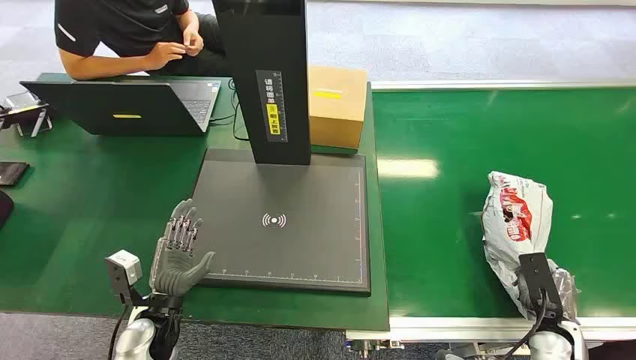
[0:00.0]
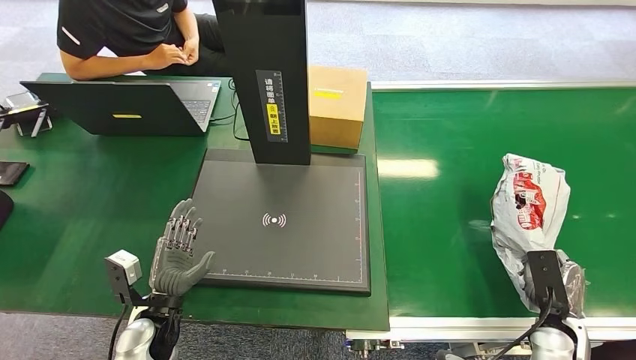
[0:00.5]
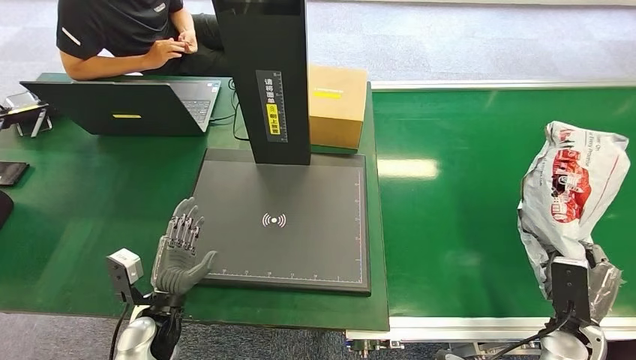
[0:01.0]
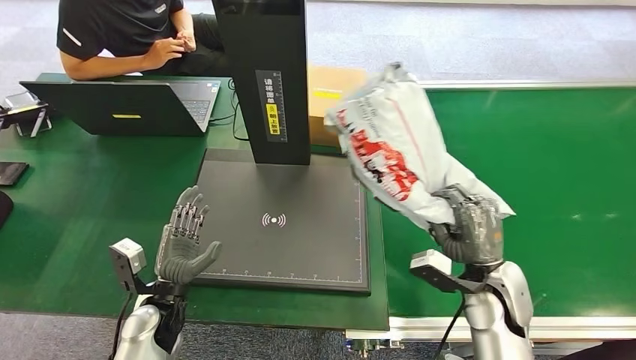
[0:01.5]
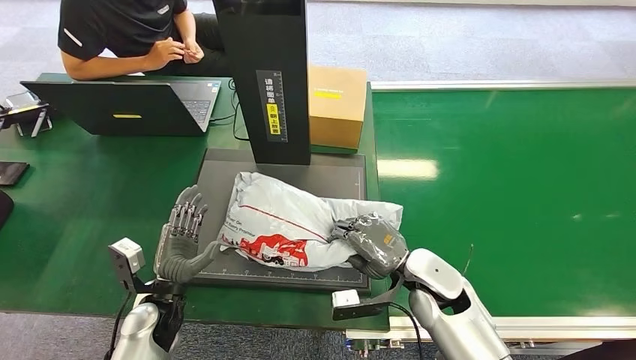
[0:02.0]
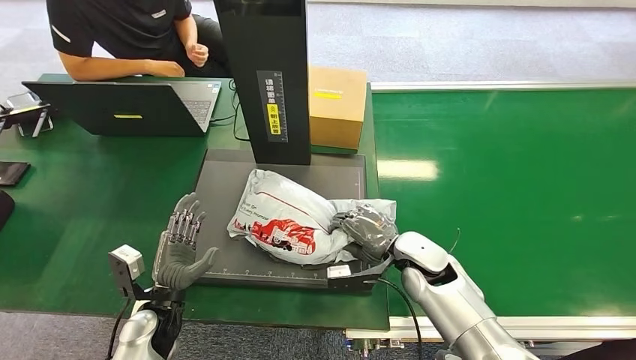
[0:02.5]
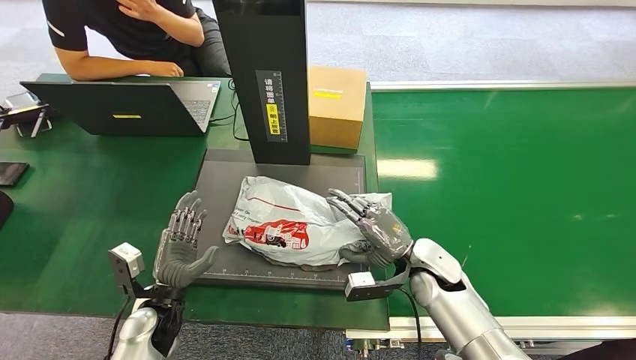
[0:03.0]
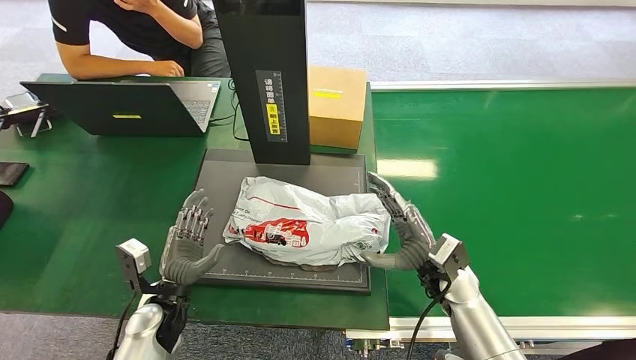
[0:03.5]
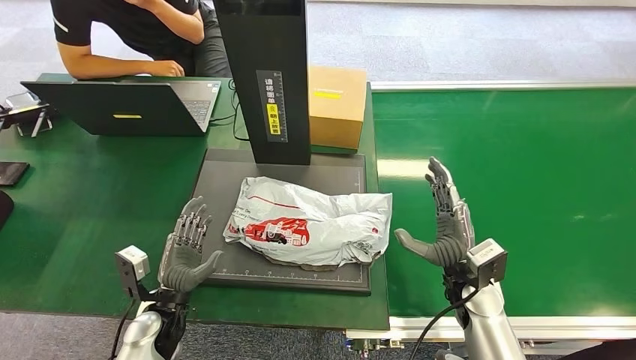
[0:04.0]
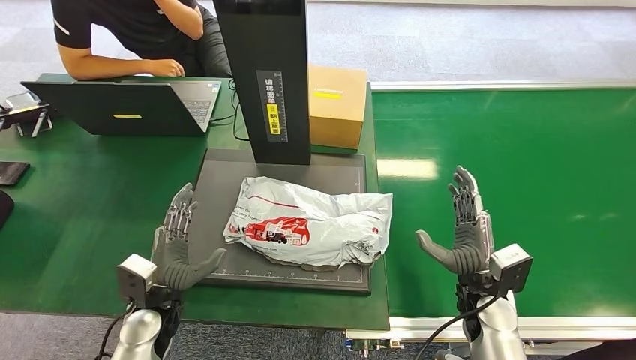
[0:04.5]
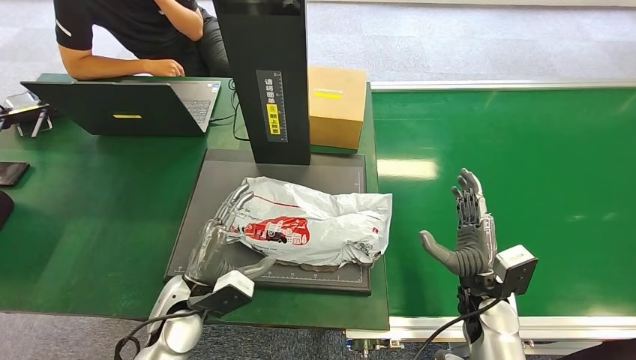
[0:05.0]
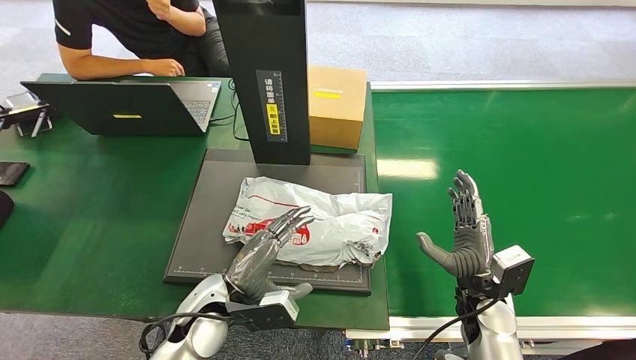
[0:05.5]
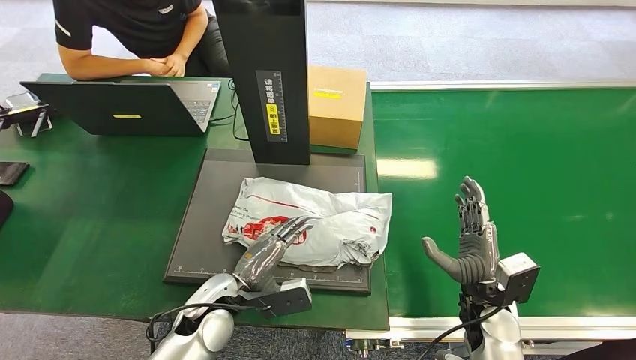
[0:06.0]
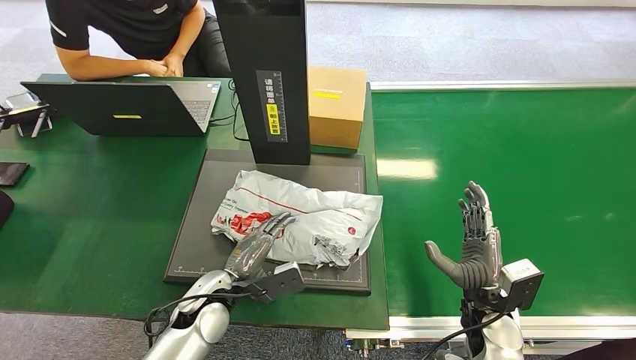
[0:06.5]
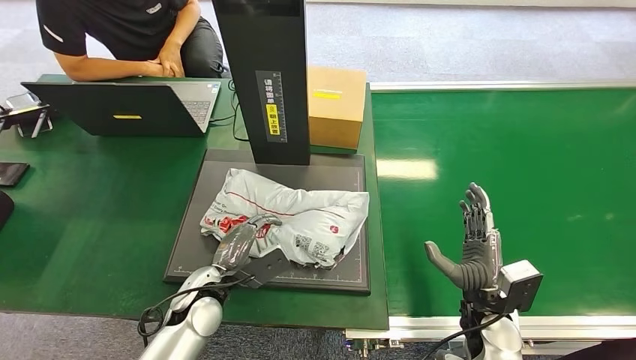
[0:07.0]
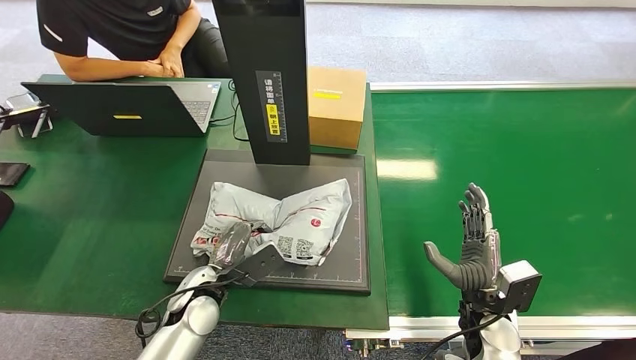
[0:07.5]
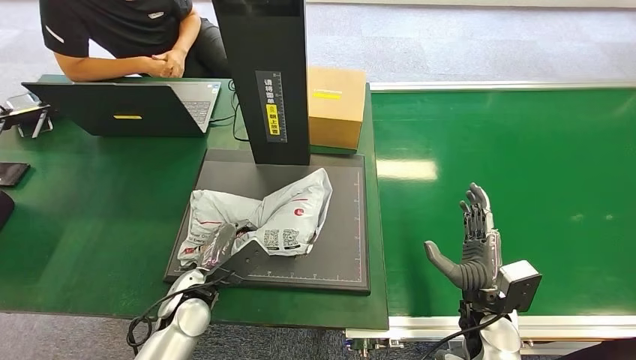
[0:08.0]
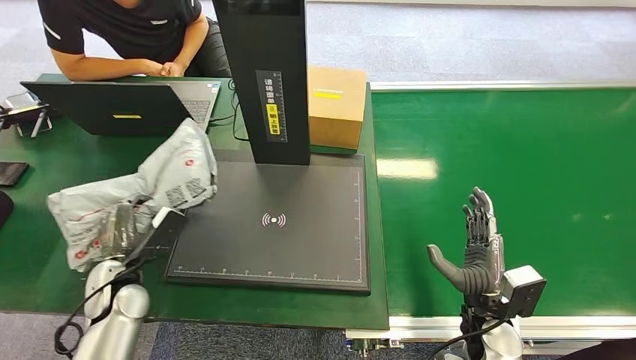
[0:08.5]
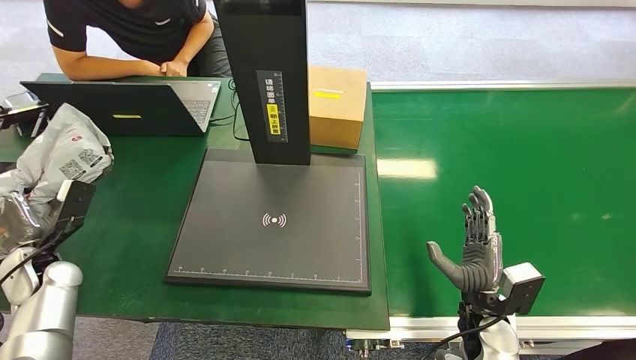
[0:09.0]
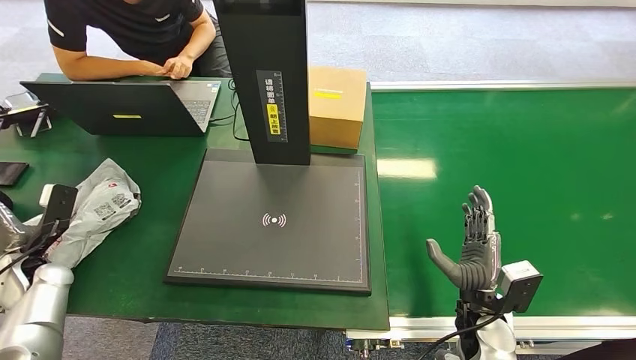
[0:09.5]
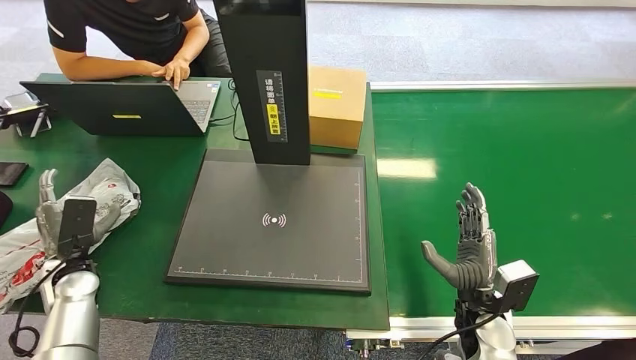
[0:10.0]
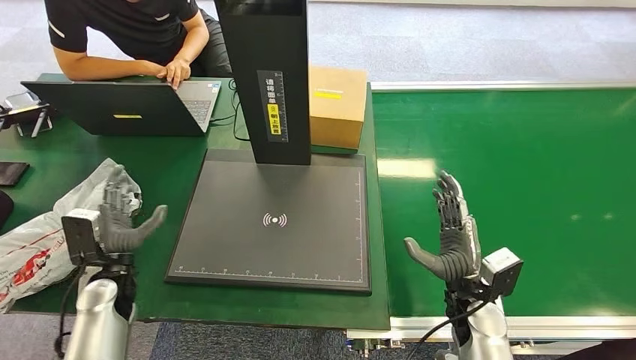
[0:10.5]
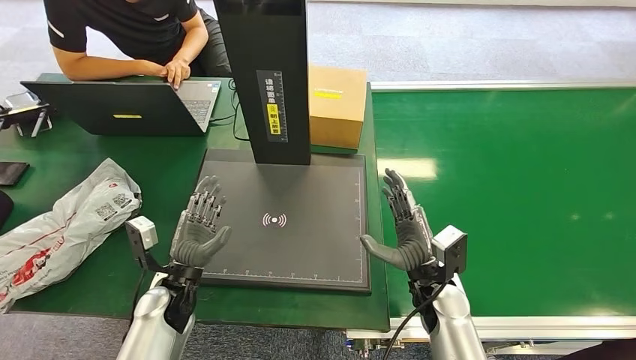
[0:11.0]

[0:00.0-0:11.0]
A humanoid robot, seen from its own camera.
Task of the whole recording: Weigh the package on the weighing device and place it in the left basket.
Step, 0:00.0 to 0:01.0: Pick up the package from the conveyor belt.
Step, 0:01.5 to 0:04.0: Place the package onto the inbound machine.
Step, 0:04.5 to 0:08.5: Pick up the package from the inbound machine.
Step, 0:09.0 to 0:11.0: Place the package into the parcel locker.
0:03.5 to 0:05.5: The left hand shifts some 10 cm to the right and upward. Meanwhile the right hand heads to the right, covering some 5 cm.
0:05.5 to 0:07.5: The left hand ends up approximately 5 cm from where it was.
0:07.5 to 0:09.0: The left hand goes some 30 cm to the left.

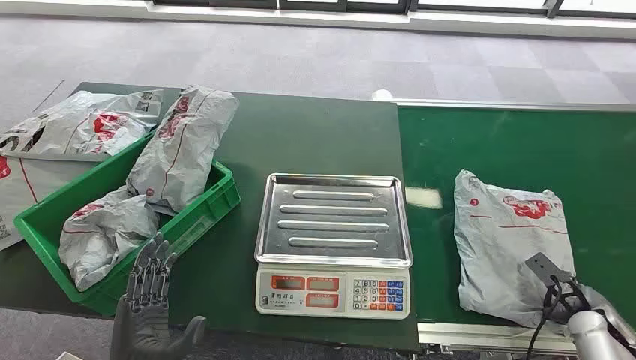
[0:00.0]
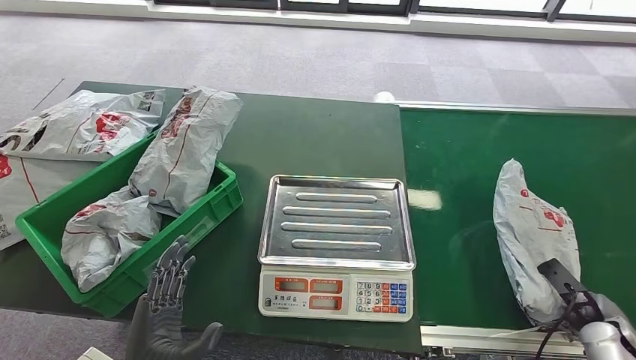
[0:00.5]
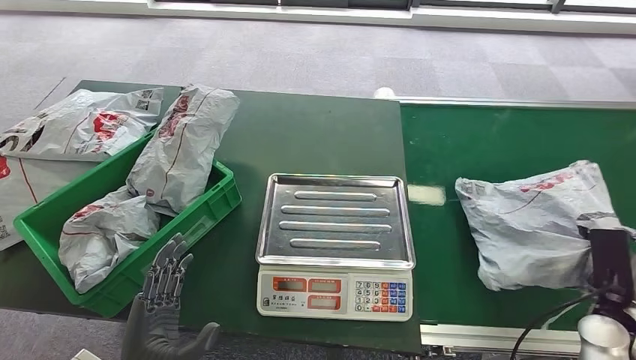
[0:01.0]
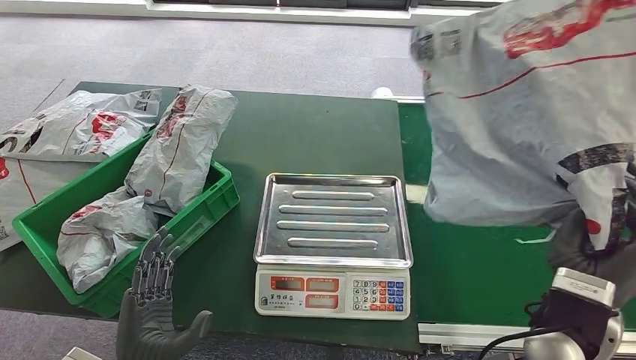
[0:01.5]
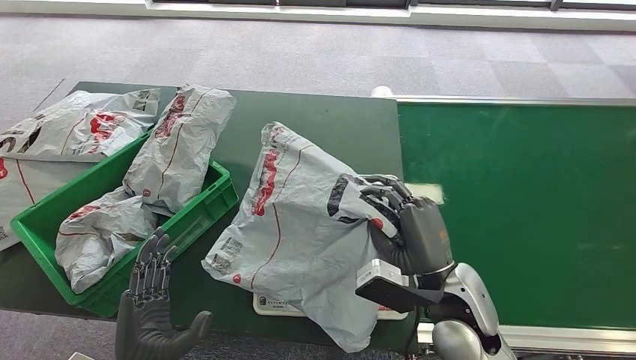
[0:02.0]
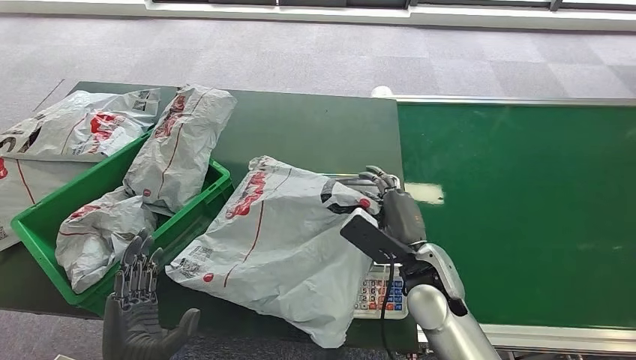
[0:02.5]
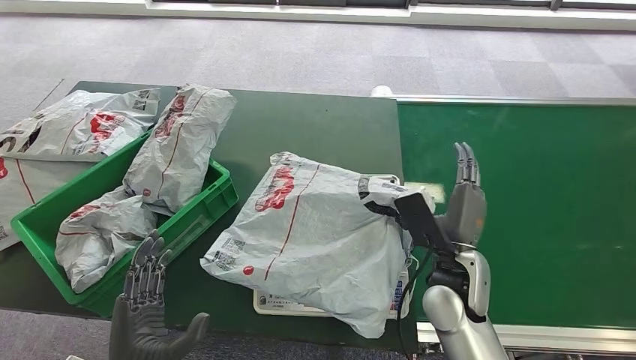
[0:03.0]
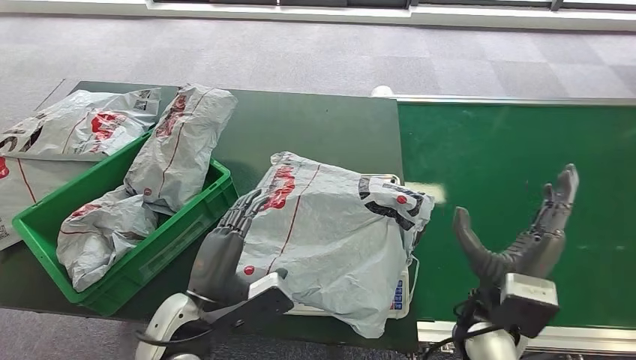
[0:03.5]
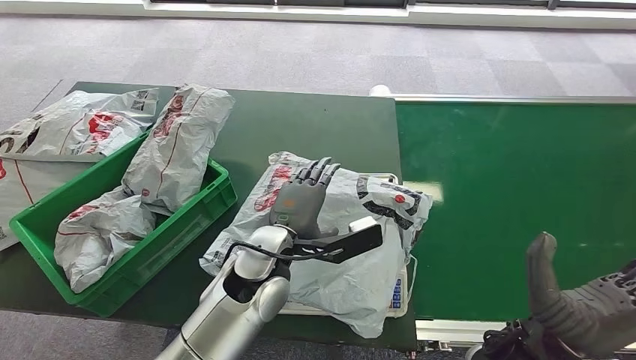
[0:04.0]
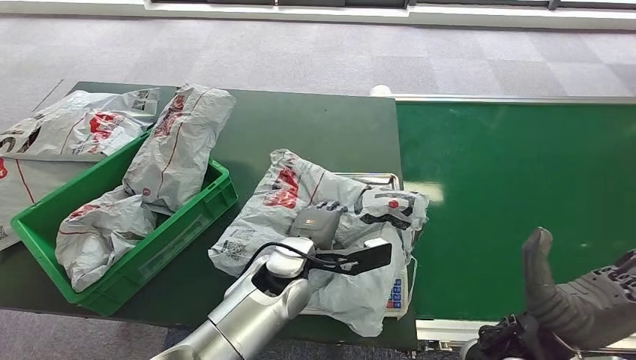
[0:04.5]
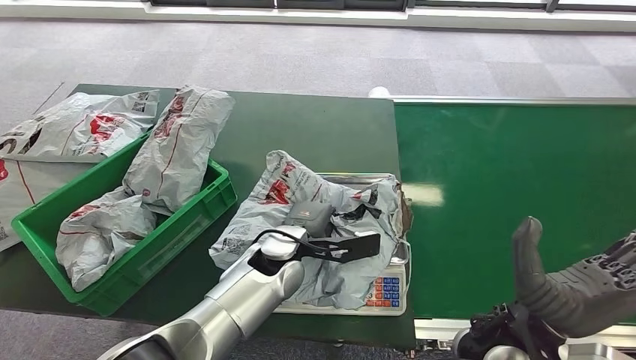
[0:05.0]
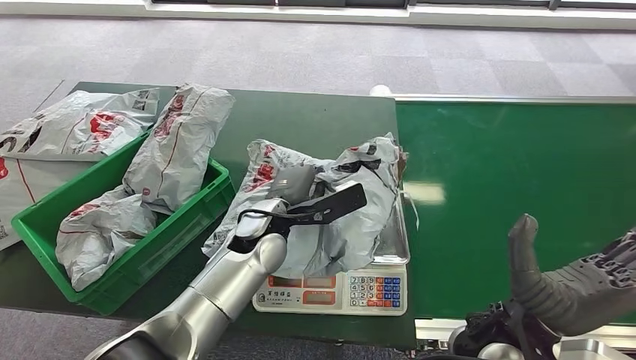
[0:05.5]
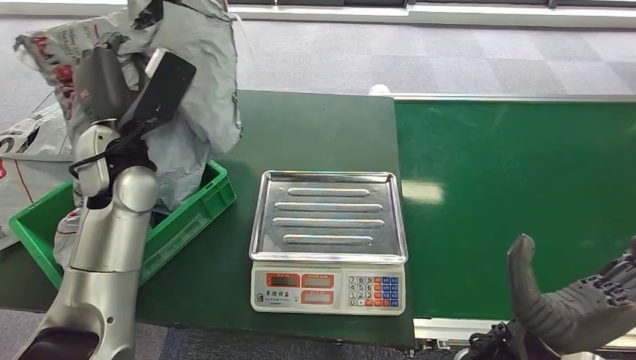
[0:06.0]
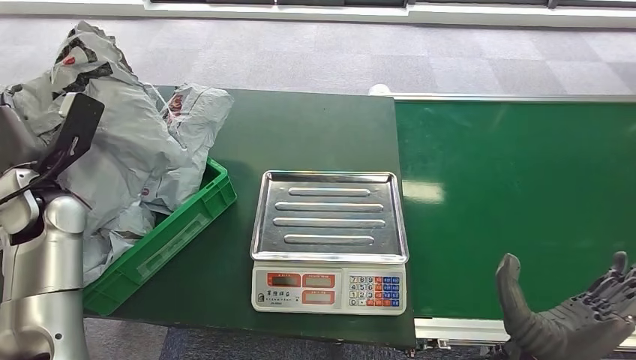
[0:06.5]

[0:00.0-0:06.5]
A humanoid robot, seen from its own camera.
Task of the whole recording: Weigh the package on the weighing device and place it in the left basket.
Step, 0:00.0 to 0:01.0: Pick up the package from the conveyor belt.
Step, 0:01.5 to 0:03.0: Place the package onto the inbound machine.
Step, 0:03.5 to 0:06.0: Pick up the package from the inbound machine.
